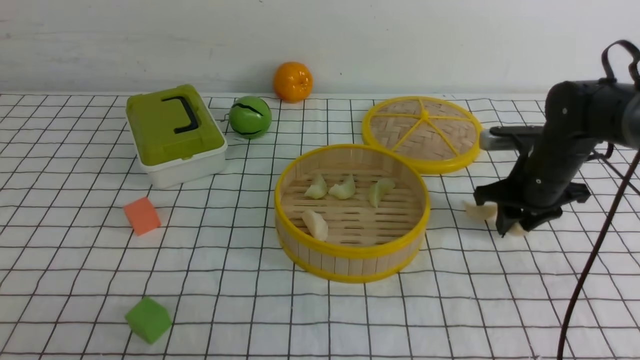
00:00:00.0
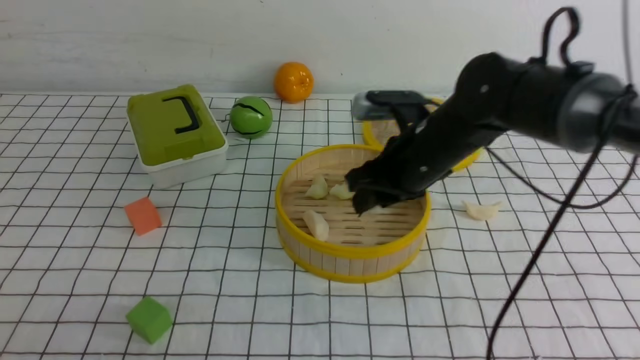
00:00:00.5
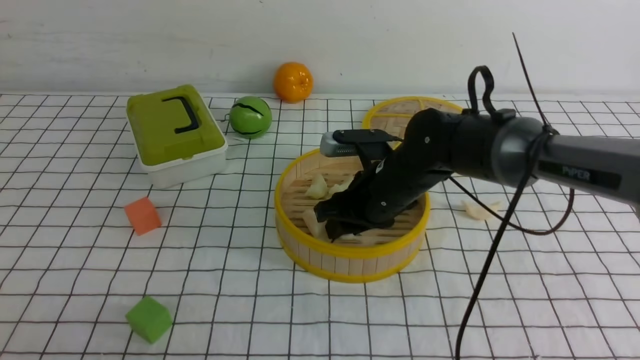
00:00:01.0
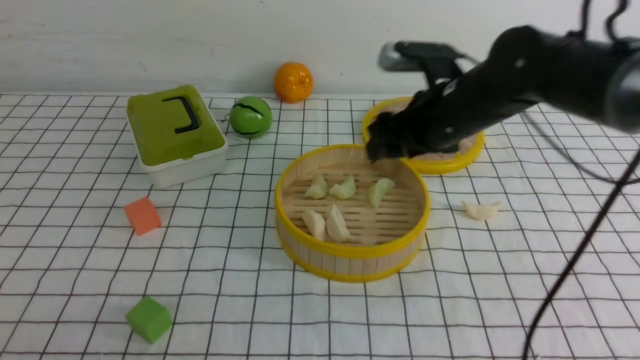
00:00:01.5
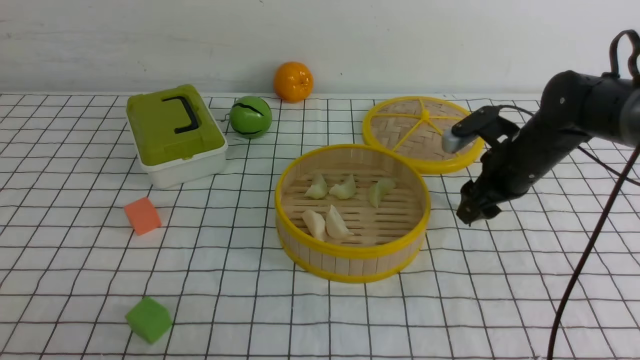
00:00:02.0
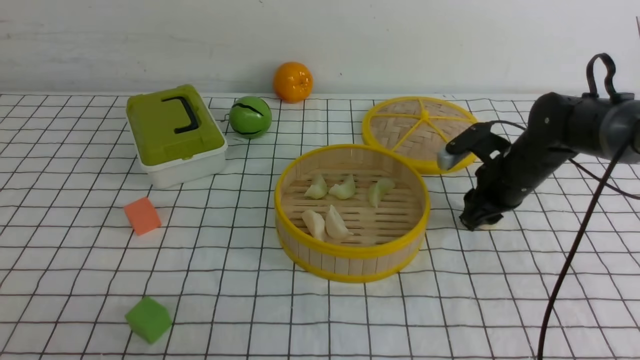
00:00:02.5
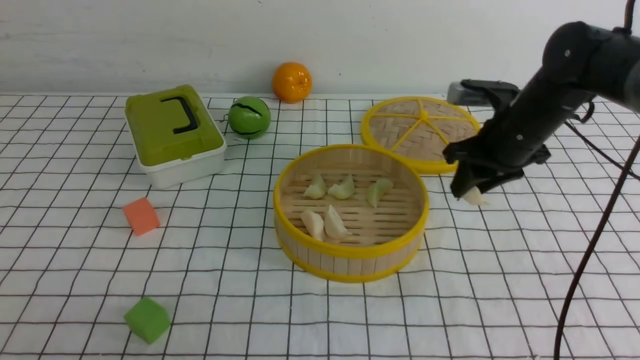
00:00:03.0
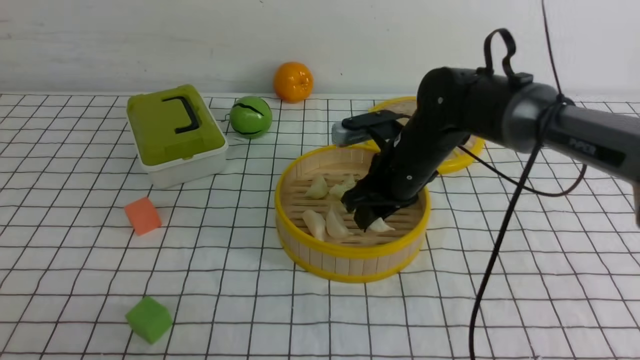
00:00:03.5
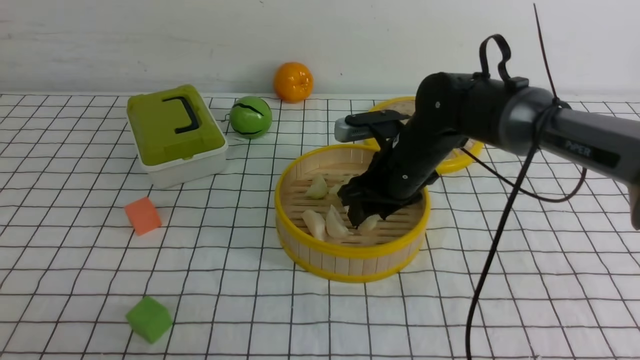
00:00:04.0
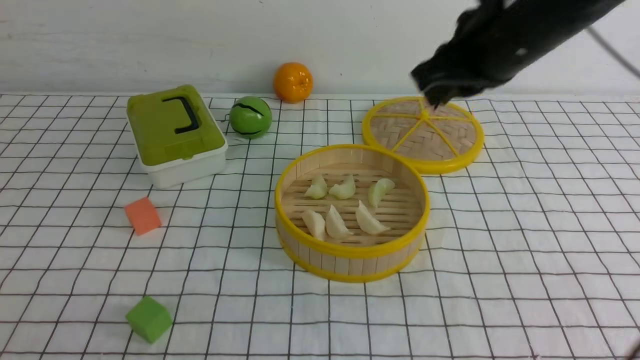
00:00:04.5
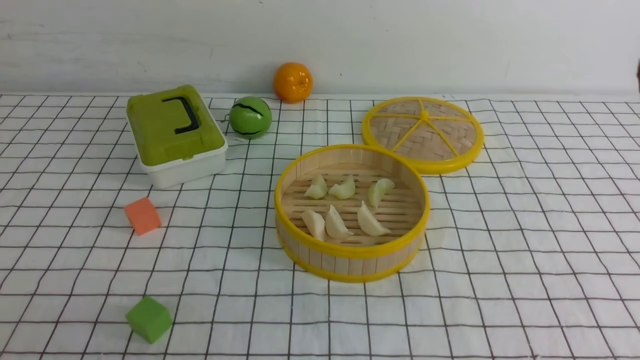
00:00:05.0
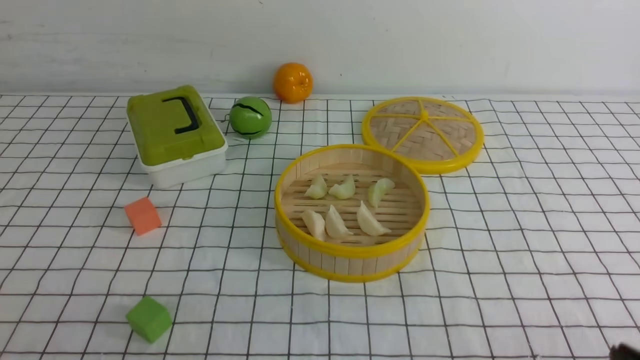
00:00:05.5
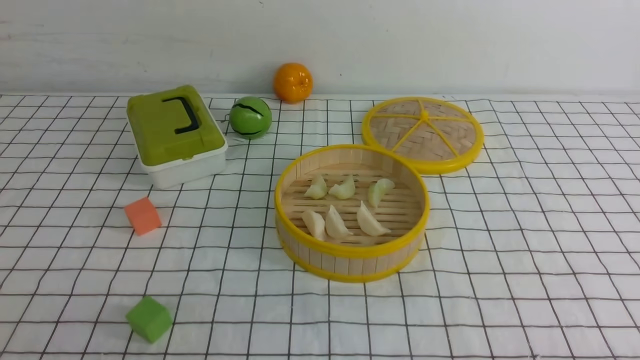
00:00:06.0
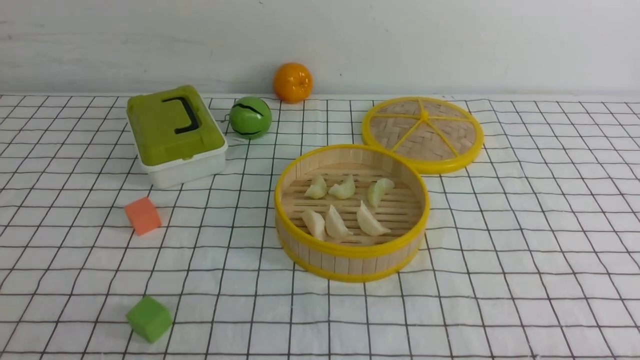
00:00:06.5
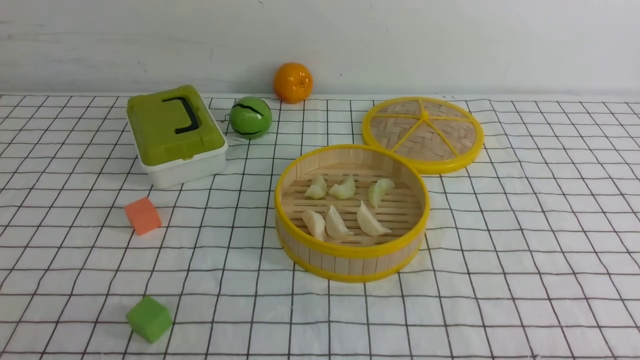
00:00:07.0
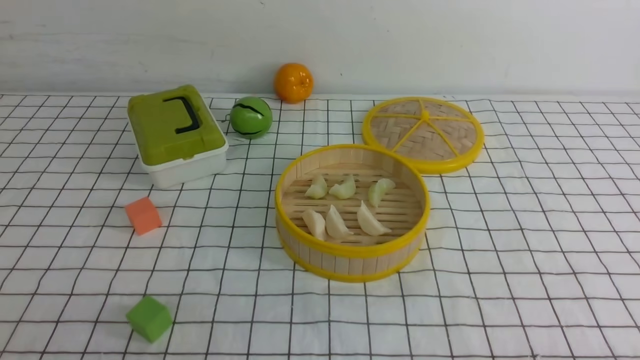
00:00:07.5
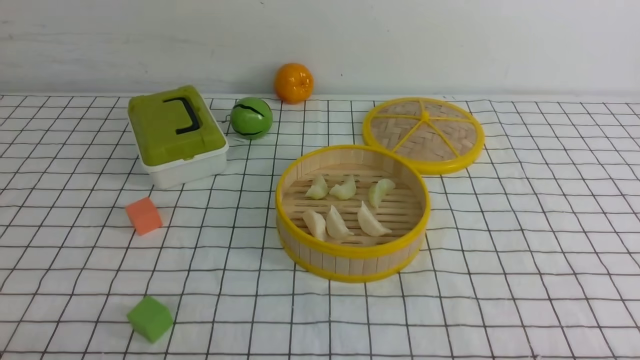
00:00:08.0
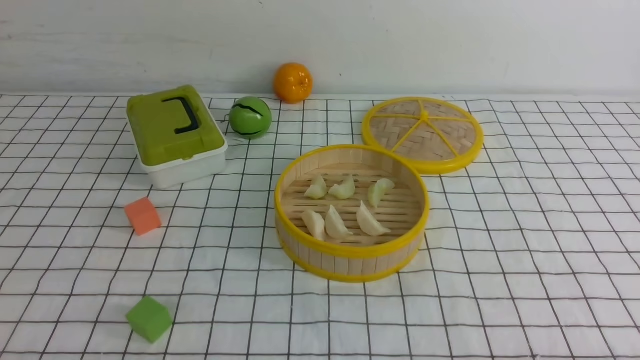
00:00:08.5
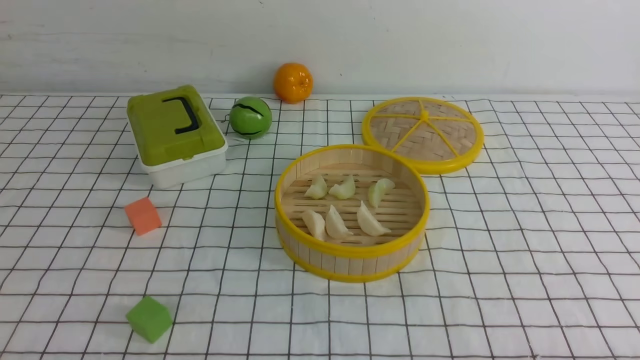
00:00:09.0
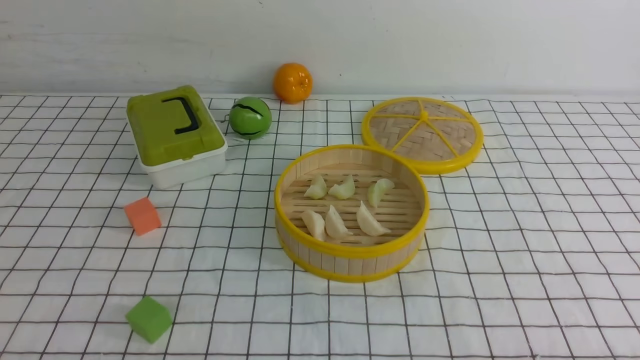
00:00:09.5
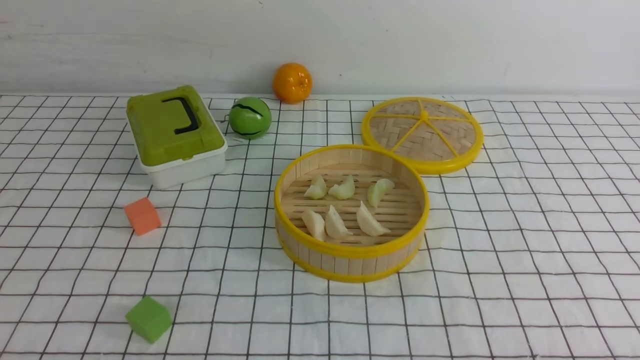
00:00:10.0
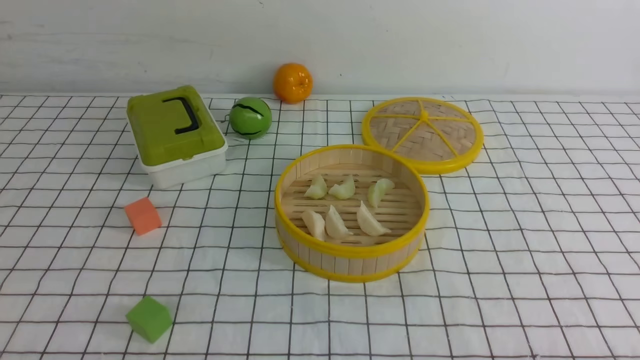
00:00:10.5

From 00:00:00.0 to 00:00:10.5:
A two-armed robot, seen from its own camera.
Task of the whole recording: put the dumplings into the steamer on the table with the white tablecloth.
Step, from 00:00:00.0 to 00:00:01.0: use the right arm to put the dumpling into the steamer.
Step, from 00:00:01.5 to 00:00:02.0: use the right arm to grab a dumpling.
Step, from 00:00:03.0 to 00:00:04.0: use the right arm to put the dumpling into the steamer.
From 00:00:00.0 to 00:00:02.0: The right gripper travels to the left and back again, some 20 cm each way, and opens its fingers.
From 00:00:02.0 to 00:00:04.0: The right gripper shifts roughly 15 cm to the left.
From 00:00:04.0 to 00:00:06.5: The right gripper heads backward and to the right, covering about 40 cm, and closes.
From 00:00:08.5 to 00:00:10.5: Both grippers stay about where they are.
